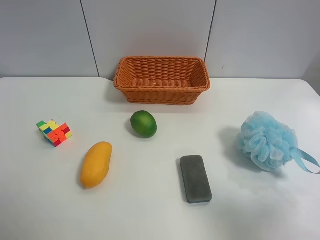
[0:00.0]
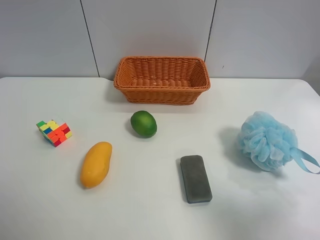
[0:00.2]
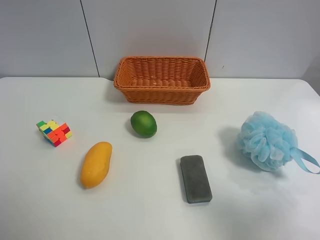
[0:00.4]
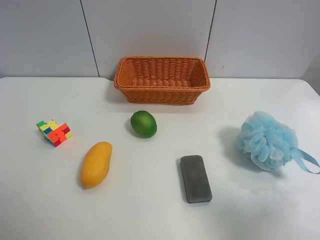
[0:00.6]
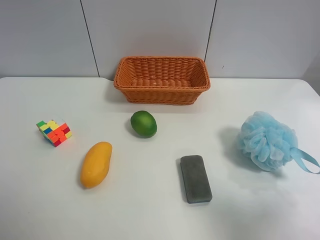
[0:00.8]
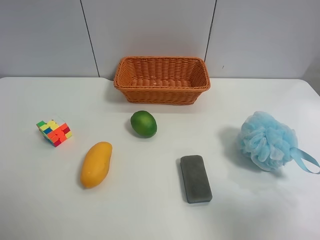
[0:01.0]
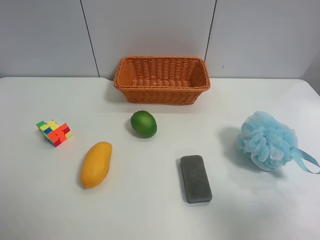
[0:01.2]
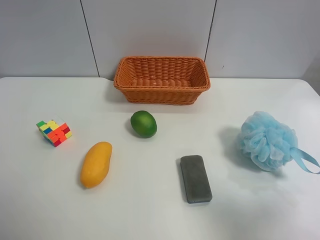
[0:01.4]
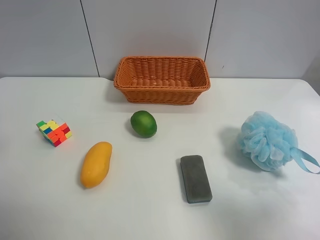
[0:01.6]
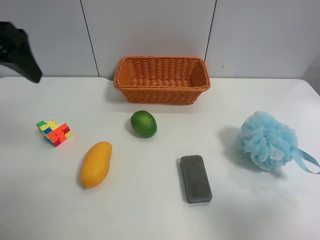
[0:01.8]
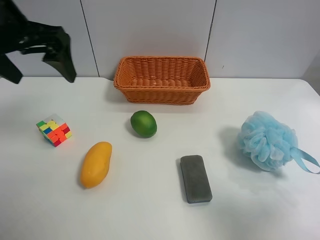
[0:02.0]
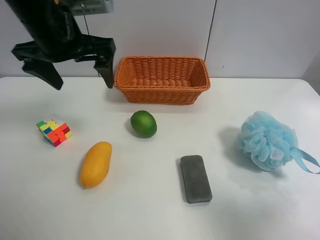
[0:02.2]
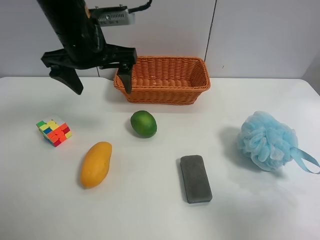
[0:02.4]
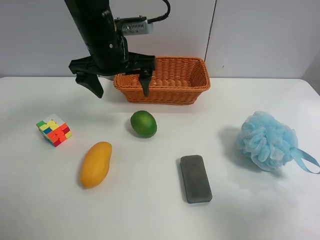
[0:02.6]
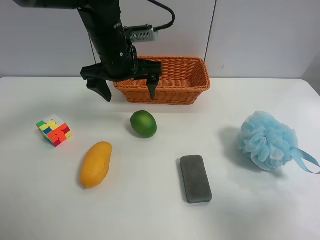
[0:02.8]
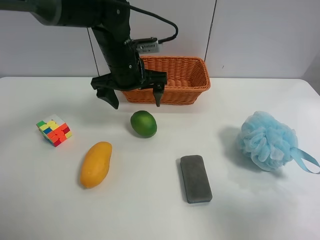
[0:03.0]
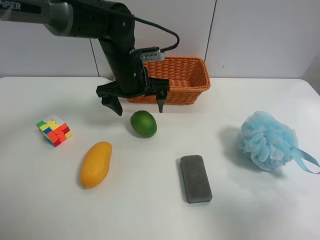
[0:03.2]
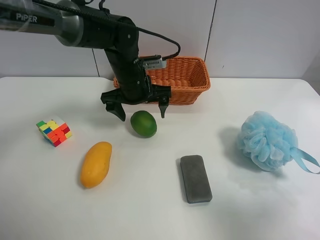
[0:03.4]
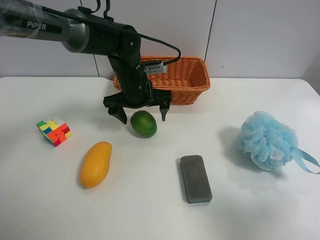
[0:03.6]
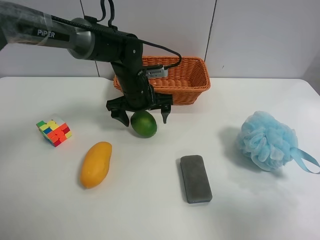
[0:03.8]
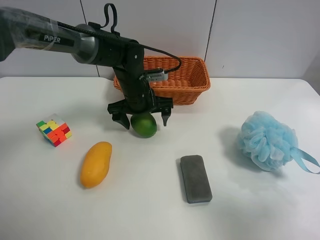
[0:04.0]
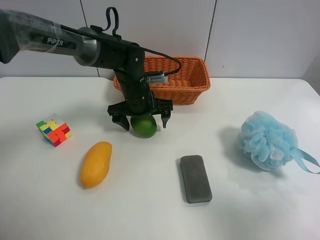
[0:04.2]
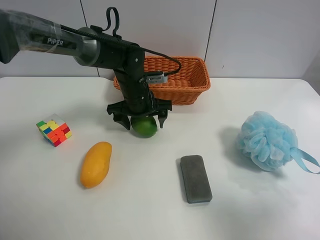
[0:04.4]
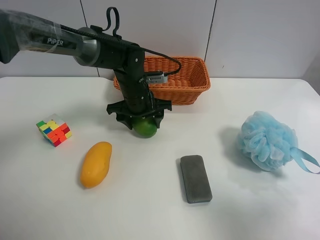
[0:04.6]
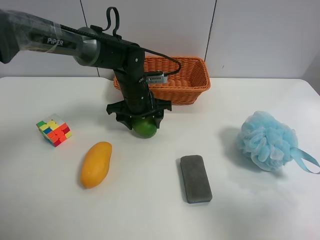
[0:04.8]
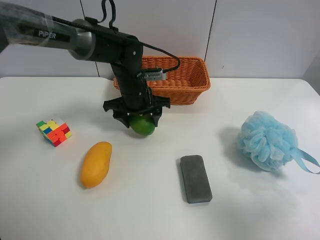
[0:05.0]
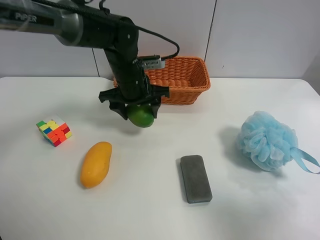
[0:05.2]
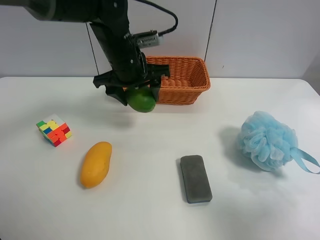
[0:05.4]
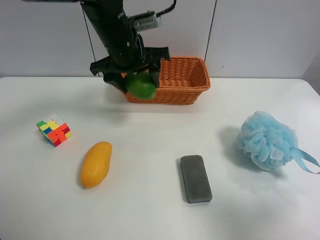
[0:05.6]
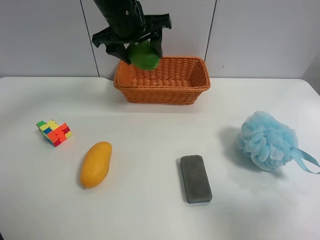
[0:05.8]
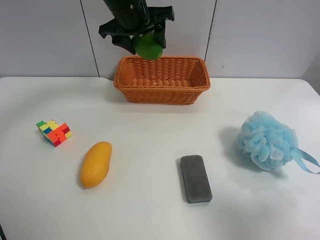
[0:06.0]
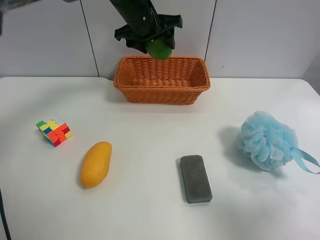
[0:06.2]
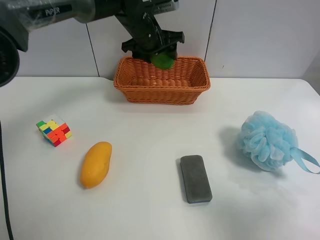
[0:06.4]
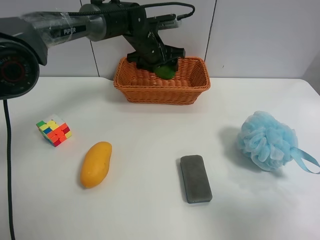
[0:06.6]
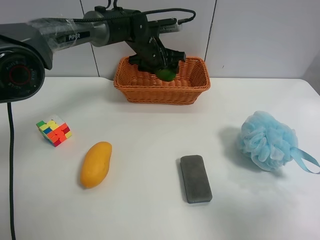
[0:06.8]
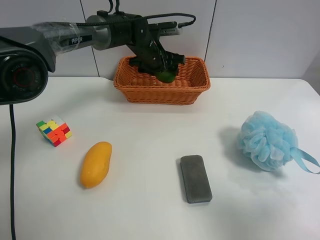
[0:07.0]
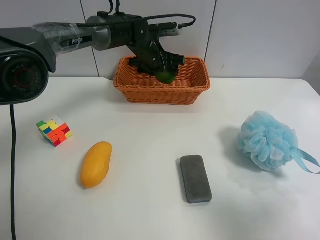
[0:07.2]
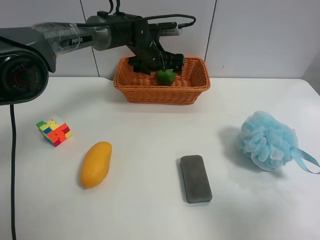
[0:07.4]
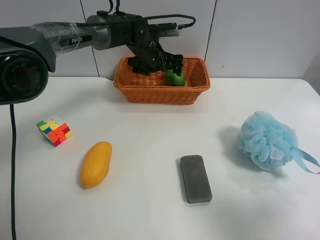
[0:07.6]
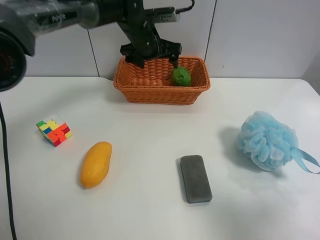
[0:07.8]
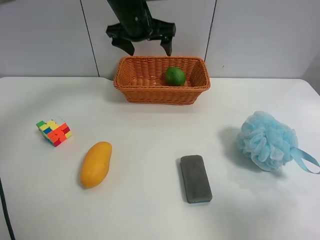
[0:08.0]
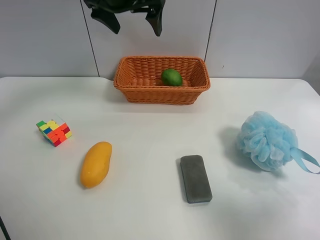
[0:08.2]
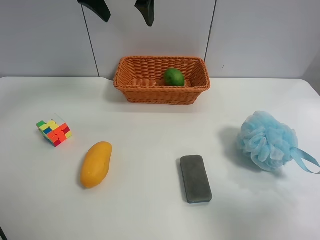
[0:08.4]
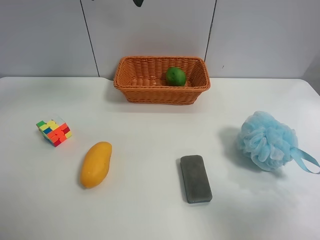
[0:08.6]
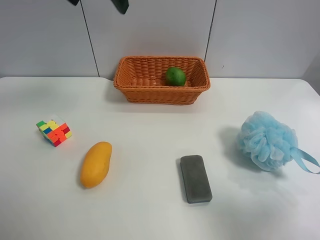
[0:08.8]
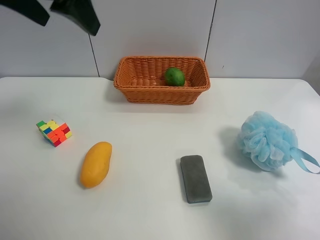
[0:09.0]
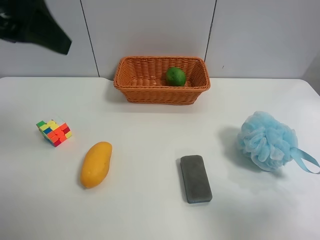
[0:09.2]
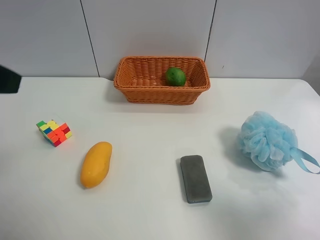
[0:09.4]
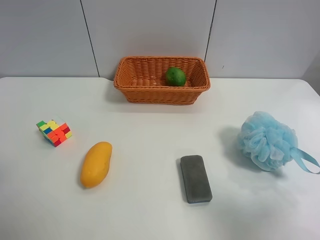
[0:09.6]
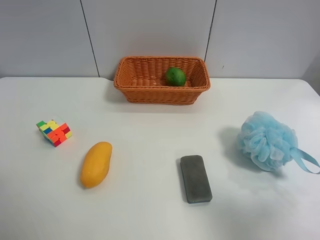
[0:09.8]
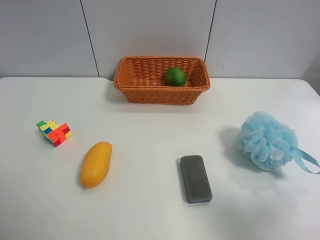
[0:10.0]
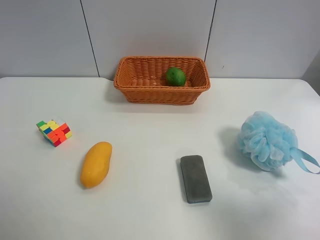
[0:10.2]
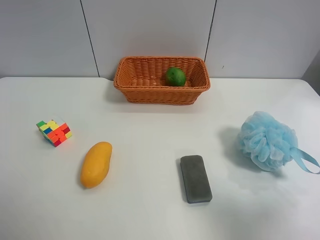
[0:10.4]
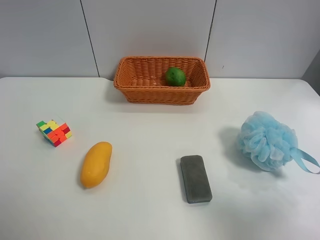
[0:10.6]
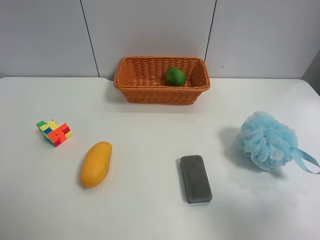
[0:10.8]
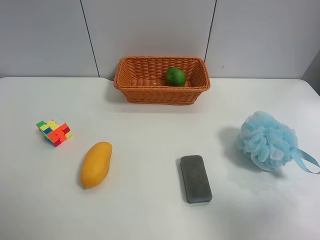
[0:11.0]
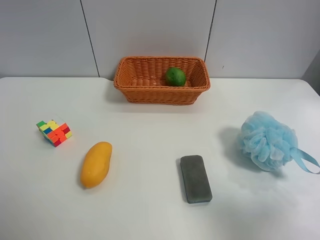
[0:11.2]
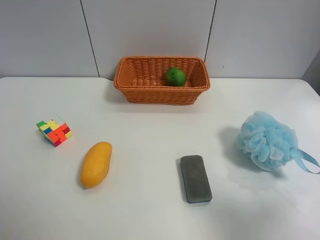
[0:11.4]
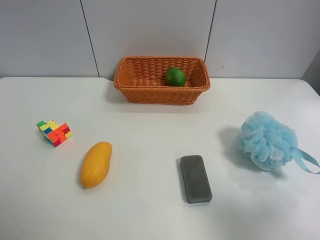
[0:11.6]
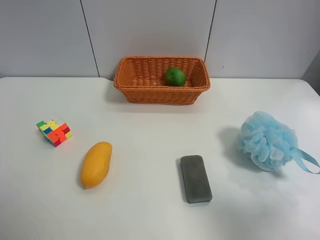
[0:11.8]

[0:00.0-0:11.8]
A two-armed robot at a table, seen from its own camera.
Task of the whole recording: Randomly grab green lemon or mangoes from the table and put them in a basket.
Step, 0:00.0 to 0:04.8: Grasp the Lemon with the left gripper.
Step, 0:05.0 to 0:08.0: Place the Lemon into the basket with the left gripper.
0:01.4 to 0:03.0: The left gripper goes some 35 cm forward, to the right and downward.
0:03.0 to 0:04.4: The left gripper travels downward by about 10 cm, and closes up.
0:04.4 to 0:06.0: The left gripper is displaced upward by approximately 20 cm.
0:06.0 to 0:07.4: The left gripper travels downward and forward by some 15 cm, and opens up.
0:07.4 to 0:08.8: The left gripper travels upward, backward and to the left by approximately 30 cm.
0:08.8 to 0:10.4: The left gripper moves backward, to the left and downward, approximately 40 cm.

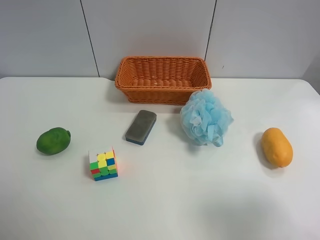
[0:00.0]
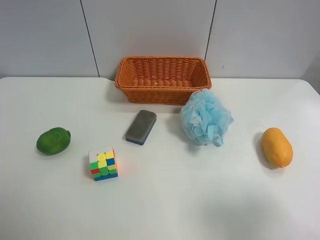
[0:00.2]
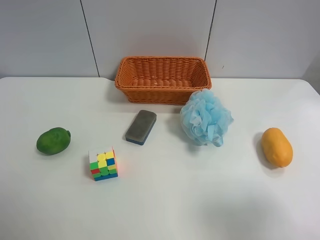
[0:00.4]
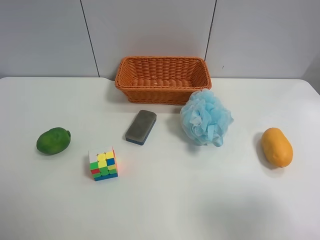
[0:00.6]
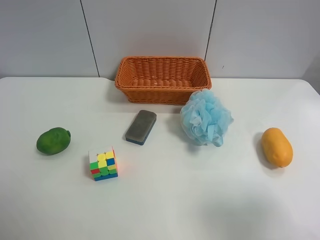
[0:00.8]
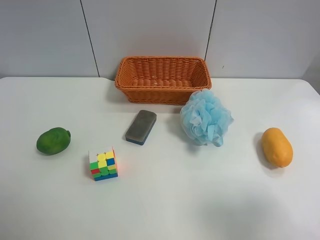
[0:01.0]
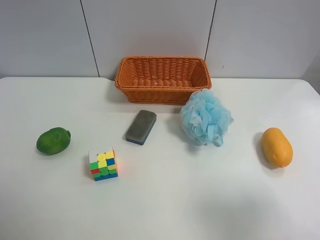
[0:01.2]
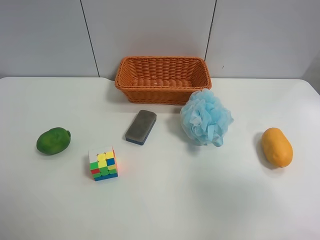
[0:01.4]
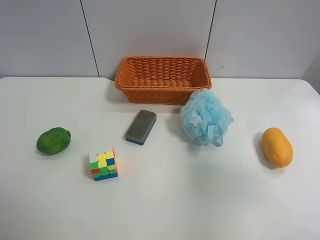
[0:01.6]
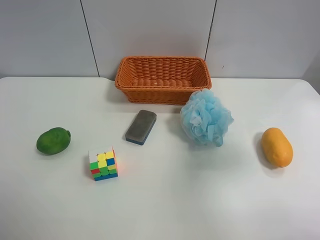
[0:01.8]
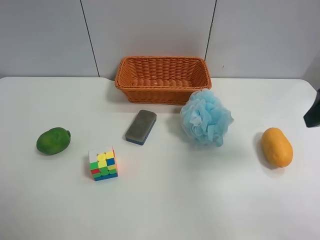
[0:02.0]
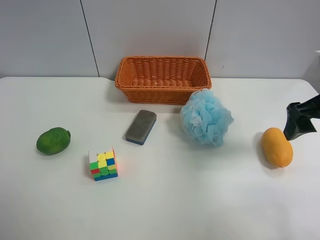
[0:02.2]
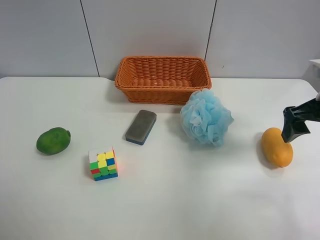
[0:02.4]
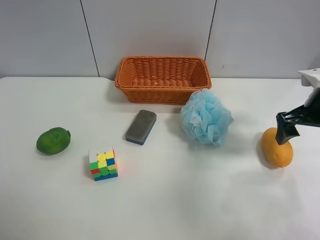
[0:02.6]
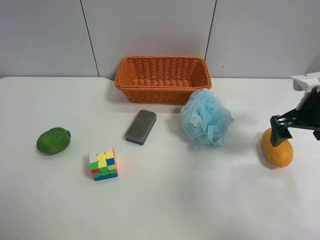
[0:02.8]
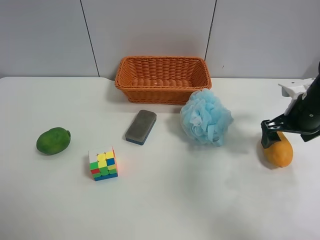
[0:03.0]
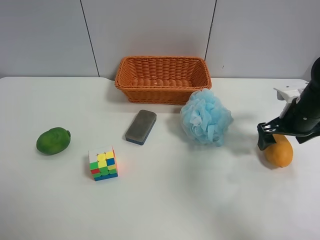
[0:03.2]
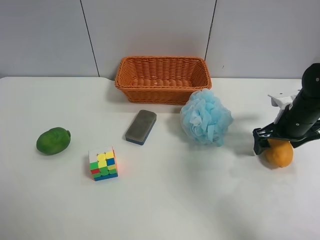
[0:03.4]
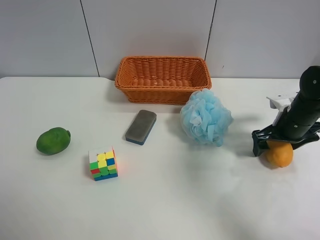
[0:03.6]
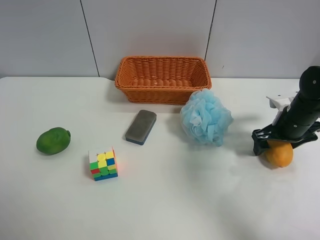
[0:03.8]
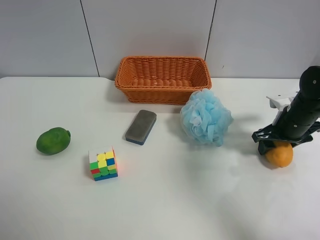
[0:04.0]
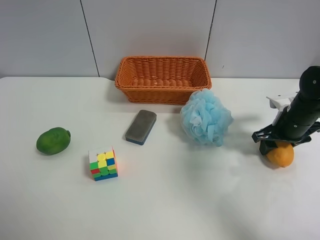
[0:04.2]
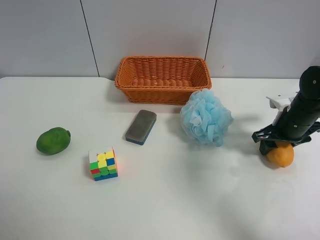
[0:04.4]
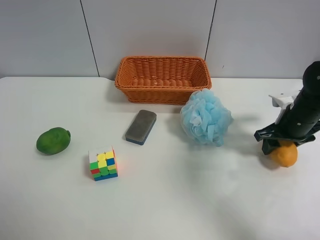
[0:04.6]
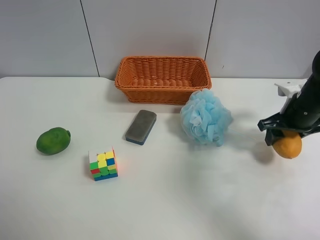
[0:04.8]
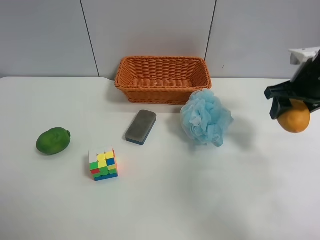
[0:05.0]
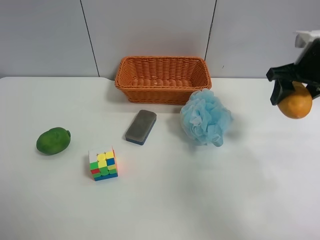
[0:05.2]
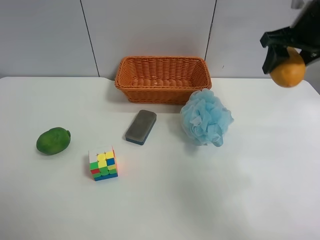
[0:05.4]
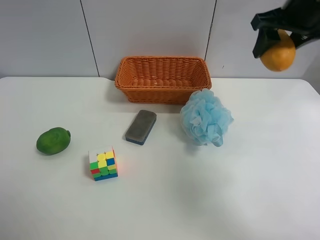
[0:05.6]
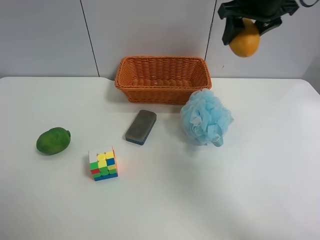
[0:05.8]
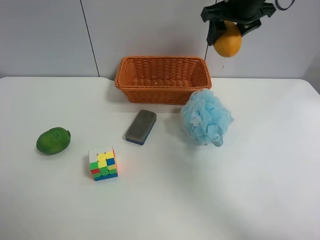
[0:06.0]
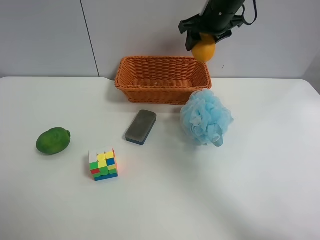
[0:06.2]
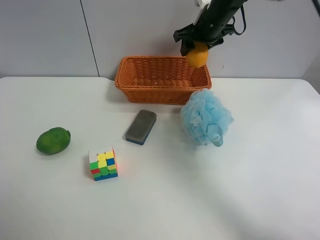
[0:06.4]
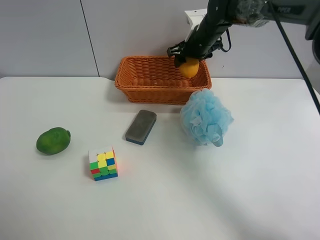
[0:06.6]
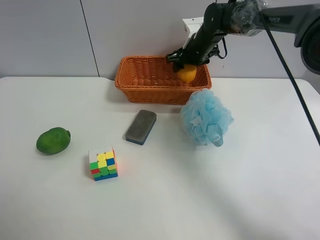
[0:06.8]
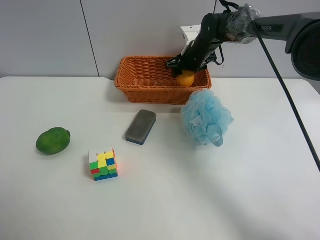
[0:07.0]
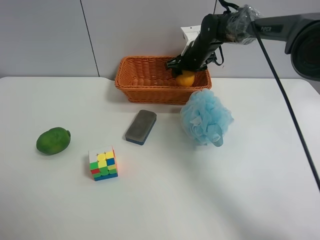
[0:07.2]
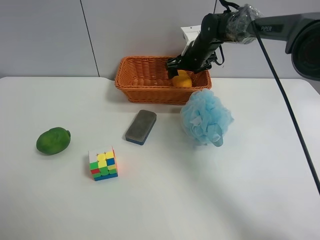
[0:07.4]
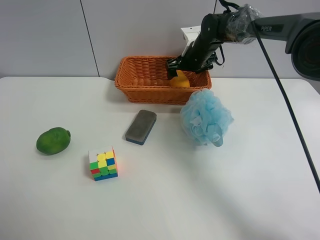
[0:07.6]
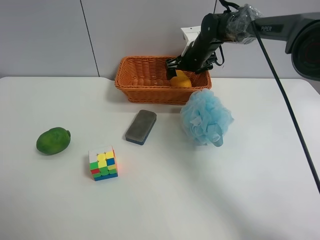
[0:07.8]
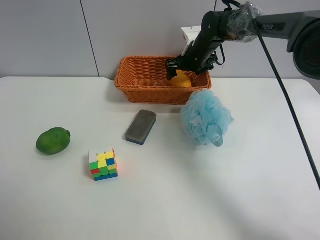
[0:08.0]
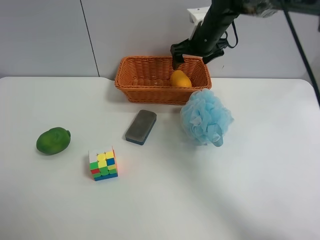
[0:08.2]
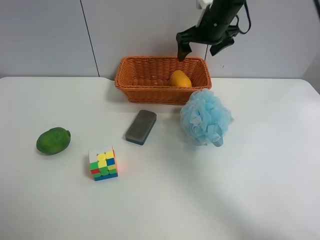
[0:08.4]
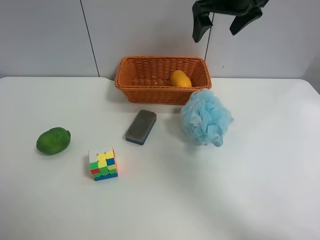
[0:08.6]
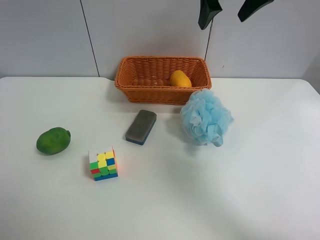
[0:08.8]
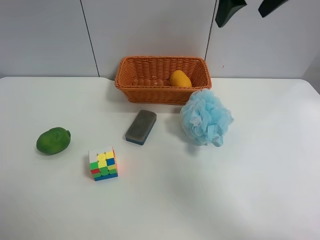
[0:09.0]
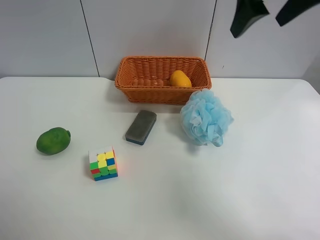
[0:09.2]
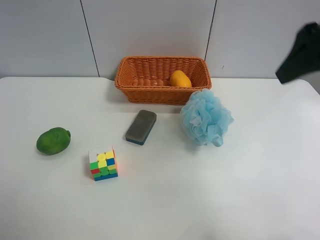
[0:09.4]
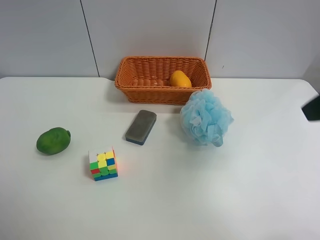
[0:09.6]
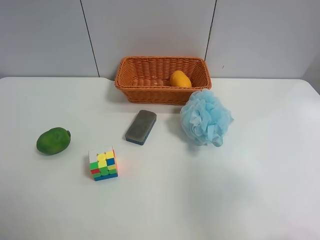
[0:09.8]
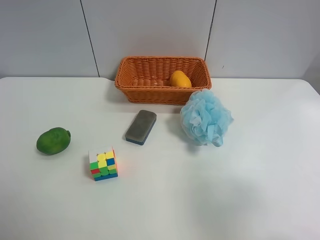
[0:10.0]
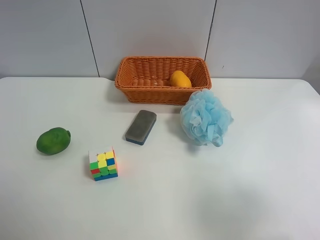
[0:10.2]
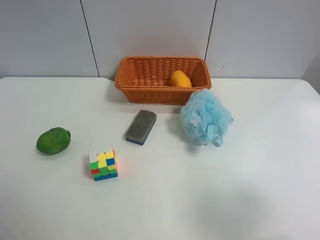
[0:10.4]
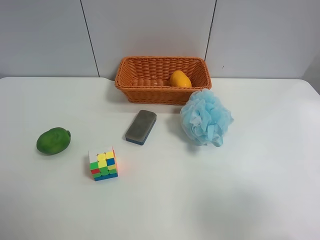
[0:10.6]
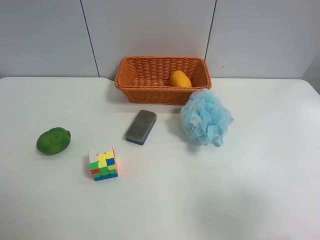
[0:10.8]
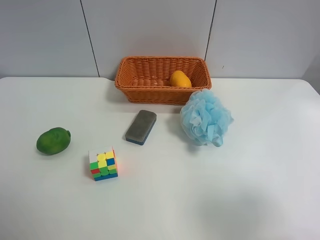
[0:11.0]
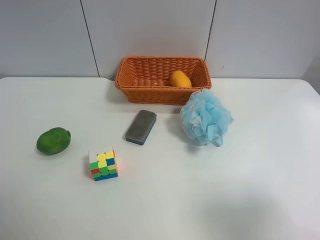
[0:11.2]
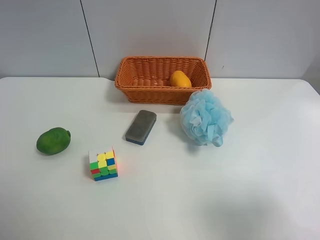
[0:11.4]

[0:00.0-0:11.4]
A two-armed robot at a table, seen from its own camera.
Task of the whole recording: Randomly grab green lemon or mangoes from the table and put them in a basket.
Step, 0:00.0 to 0:04.0: Grasp the mango with the right gripper.
Step, 0:04.2 to 0:08.4: Place the mango into the basket with the right gripper.
0:00.0 to 0:01.4: The right gripper moves upward, roughly 5 cm.
0:01.4 to 0:02.8: The right gripper moves forward and downward, approximately 25 cm.
0:02.8 to 0:04.2: The right gripper is displaced downward by about 5 cm, and closes up.
0:04.2 to 0:05.6: The right gripper travels upward by approximately 25 cm.
0:05.6 to 0:07.2: The right gripper travels downward, forward and to the left by some 25 cm.
0:07.2 to 0:08.6: The right gripper is displaced upward and backward by roughly 20 cm, and opens up.
0:08.6 to 0:10.0: The right gripper heads backward, covering about 35 cm.
